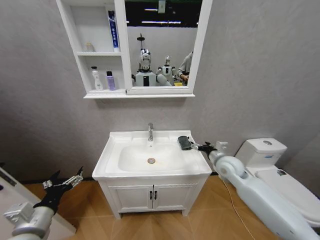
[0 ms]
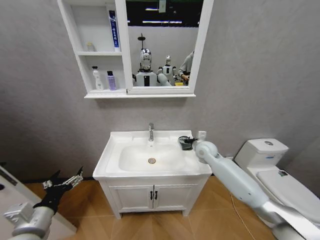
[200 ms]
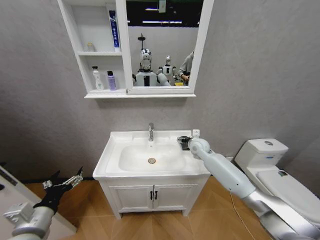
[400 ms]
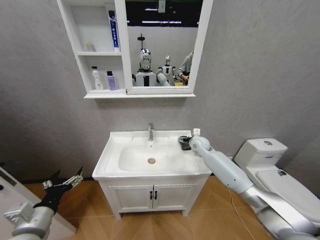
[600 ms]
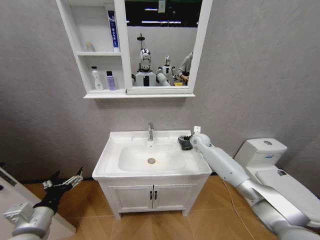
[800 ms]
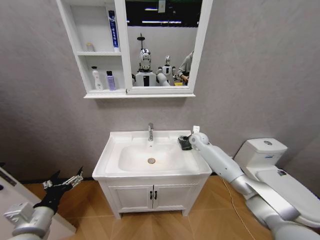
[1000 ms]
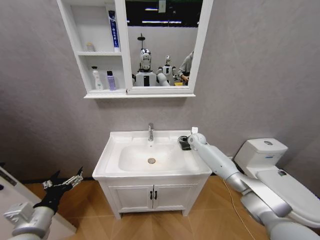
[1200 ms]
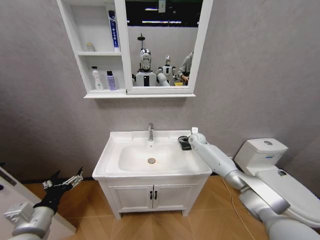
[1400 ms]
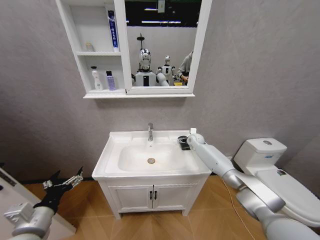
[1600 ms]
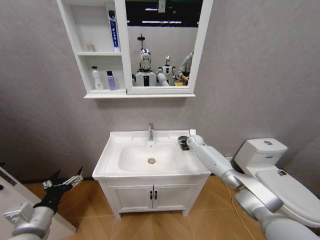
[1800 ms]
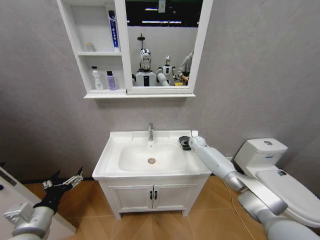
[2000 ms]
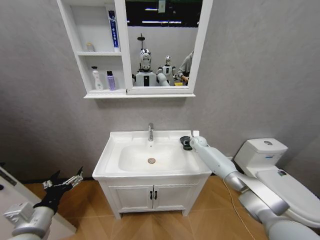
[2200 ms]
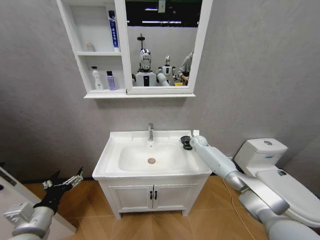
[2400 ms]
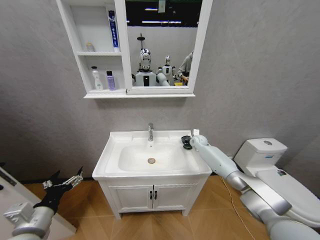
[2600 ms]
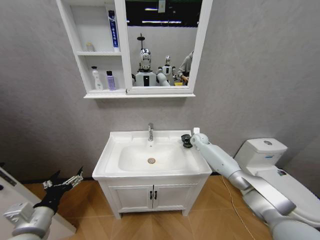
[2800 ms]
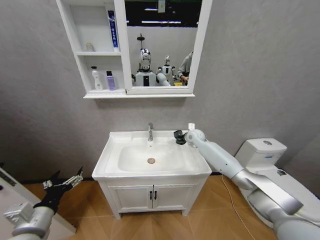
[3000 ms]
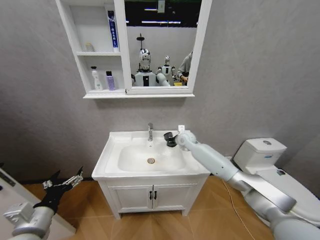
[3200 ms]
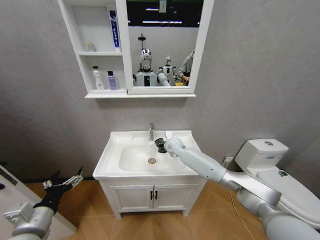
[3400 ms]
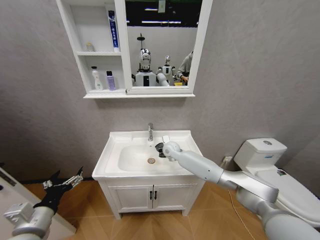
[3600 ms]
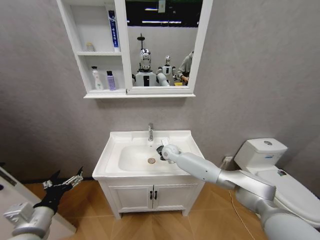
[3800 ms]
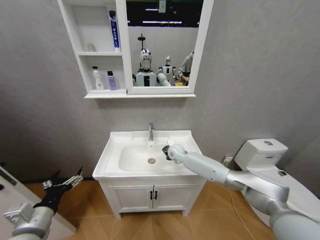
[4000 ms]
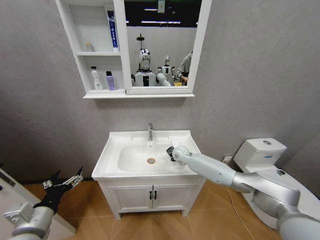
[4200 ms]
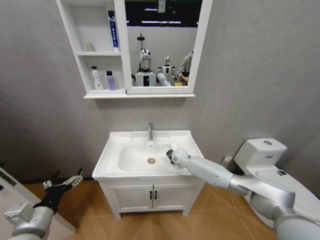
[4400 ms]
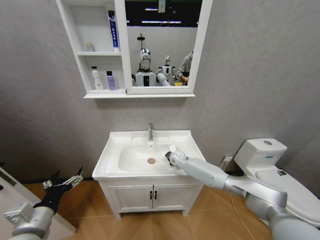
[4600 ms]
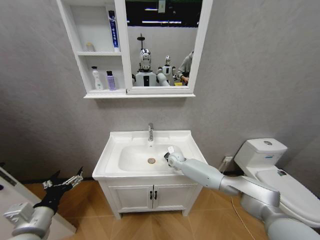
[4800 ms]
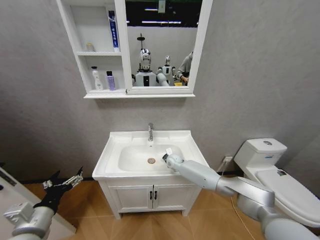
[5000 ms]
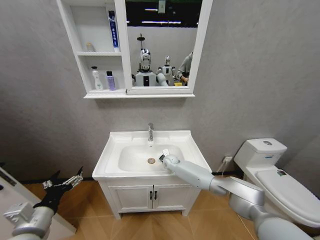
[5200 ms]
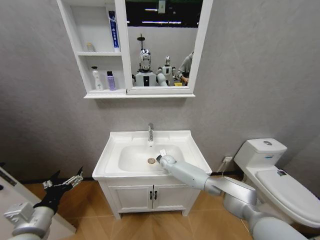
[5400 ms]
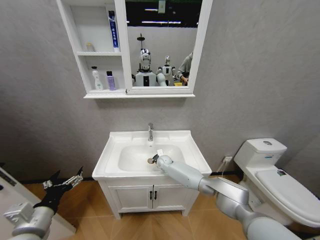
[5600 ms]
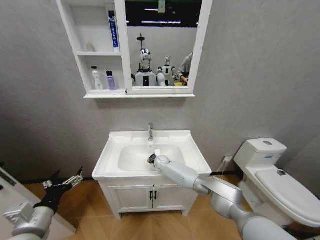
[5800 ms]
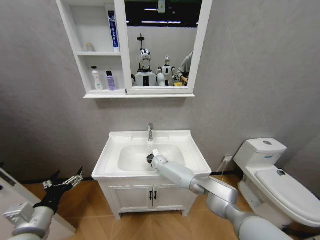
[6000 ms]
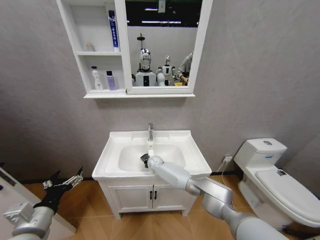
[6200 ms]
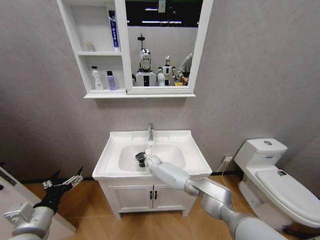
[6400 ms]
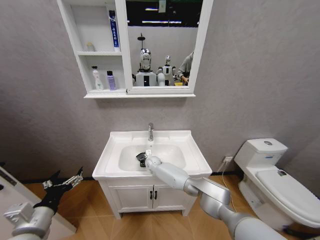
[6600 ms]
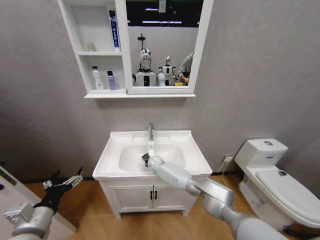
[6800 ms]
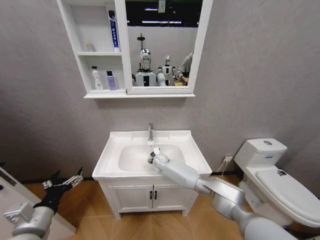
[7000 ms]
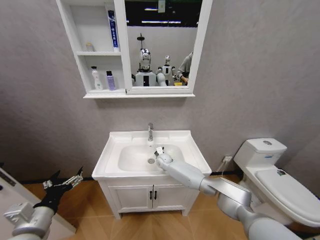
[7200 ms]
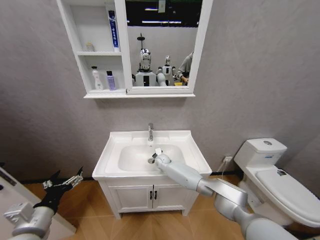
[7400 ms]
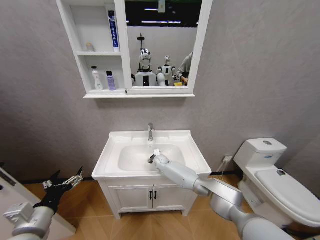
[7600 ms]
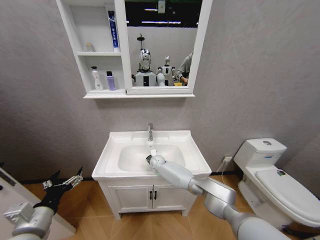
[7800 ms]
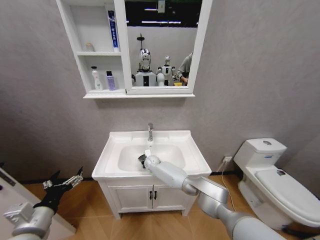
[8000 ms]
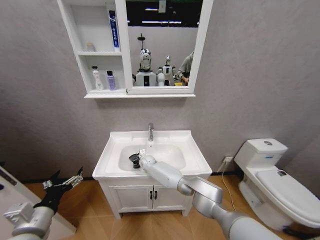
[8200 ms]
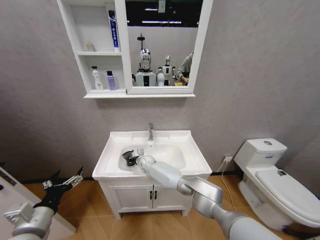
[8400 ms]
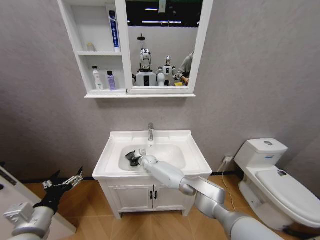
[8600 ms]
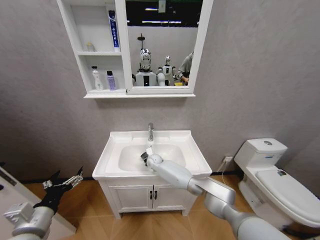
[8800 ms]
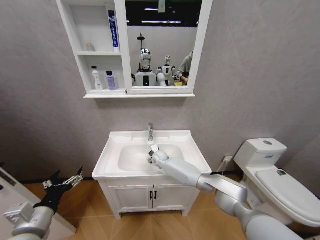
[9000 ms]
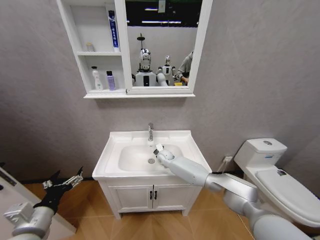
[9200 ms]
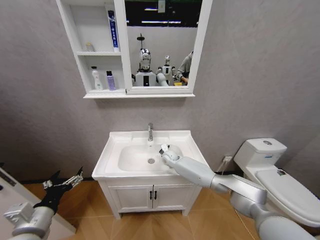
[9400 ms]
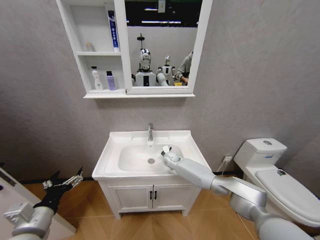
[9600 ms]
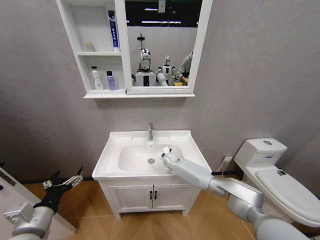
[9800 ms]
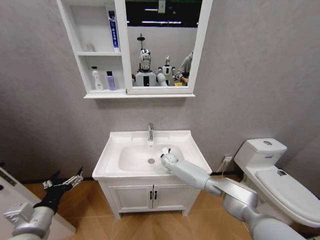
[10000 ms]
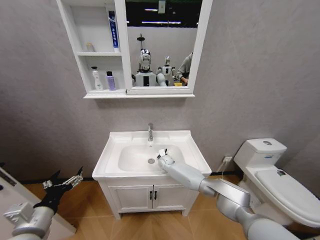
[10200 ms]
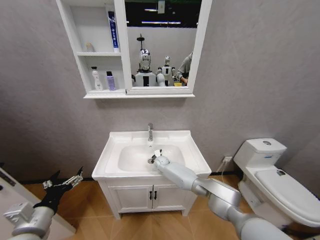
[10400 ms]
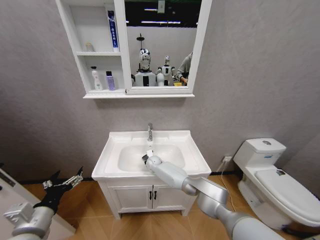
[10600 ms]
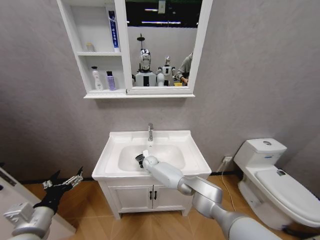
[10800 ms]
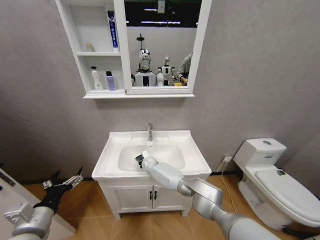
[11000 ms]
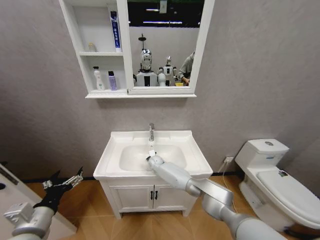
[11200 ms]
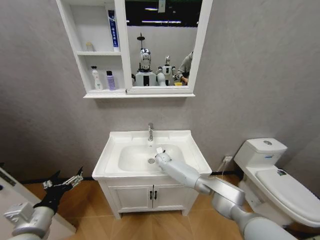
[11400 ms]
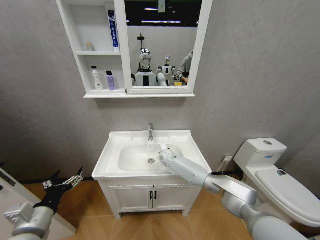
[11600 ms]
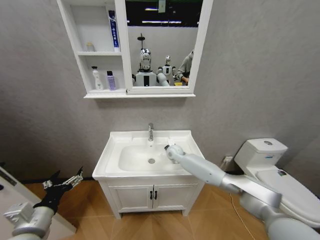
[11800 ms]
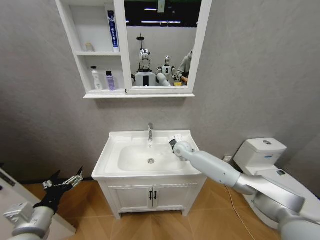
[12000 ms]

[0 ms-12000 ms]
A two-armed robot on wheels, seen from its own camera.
Task of the whole recording: Move facial cleanser and shampoo from washbasin to cabinet, then wipe washbasin with towel.
0 ms to 1600 ms: The right gripper shifts some 25 cm forward.
1600 ms to 3000 ms: The right gripper goes about 5 cm upward, and closes.
3000 ms to 4400 ms: The right gripper moves downward, to the left and backward, about 15 cm.
4400 ms to 6000 ms: The right gripper moves to the left and downward, roughly 15 cm.
6000 ms to 7600 ms: There are only small adjustments of the grippers.
7600 ms to 9000 ms: The right gripper goes to the left and returns, about 10 cm each way.
9000 ms to 10400 ms: The right gripper shifts about 5 cm downward.
10400 ms to 12000 ms: The right gripper goes some 20 cm upward and to the right.

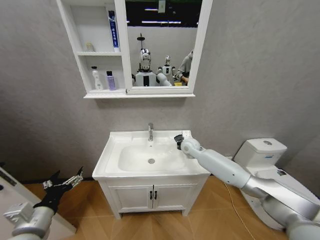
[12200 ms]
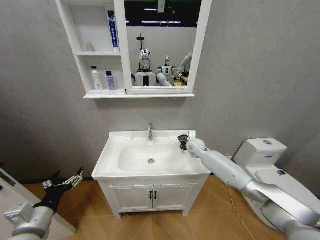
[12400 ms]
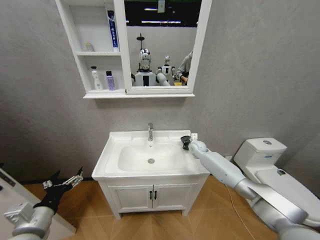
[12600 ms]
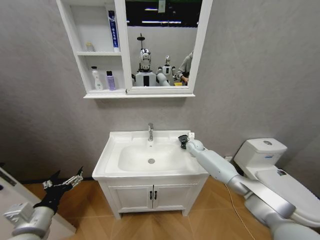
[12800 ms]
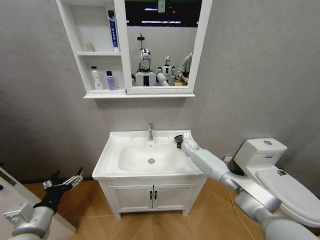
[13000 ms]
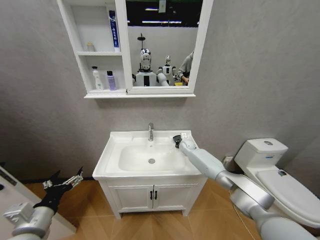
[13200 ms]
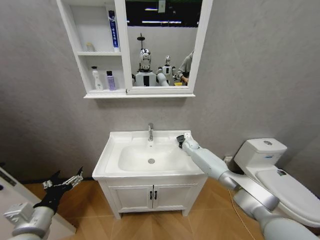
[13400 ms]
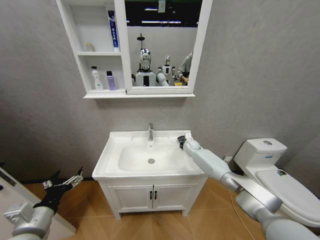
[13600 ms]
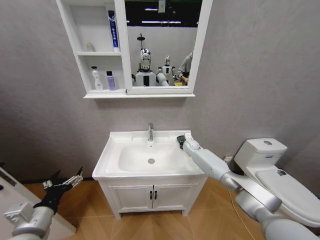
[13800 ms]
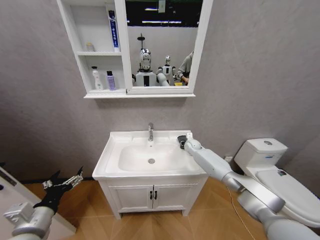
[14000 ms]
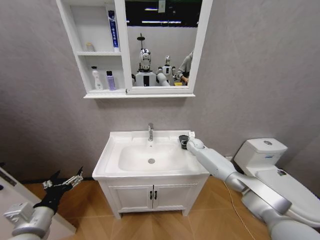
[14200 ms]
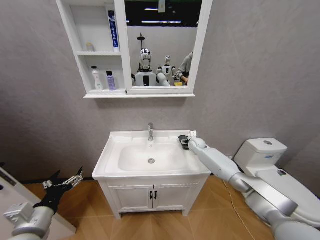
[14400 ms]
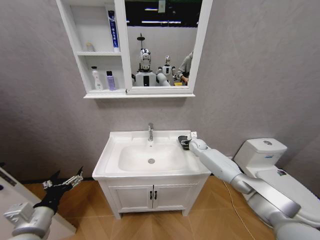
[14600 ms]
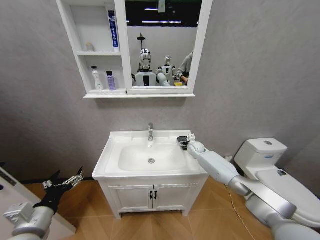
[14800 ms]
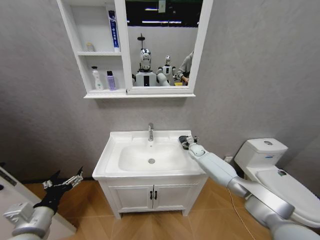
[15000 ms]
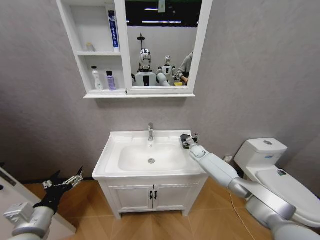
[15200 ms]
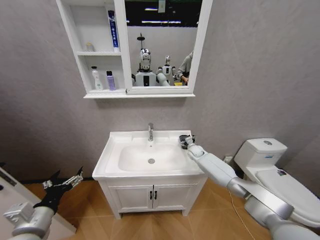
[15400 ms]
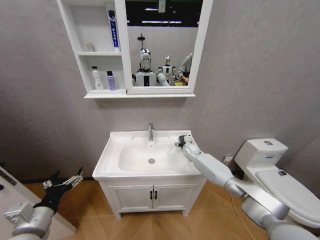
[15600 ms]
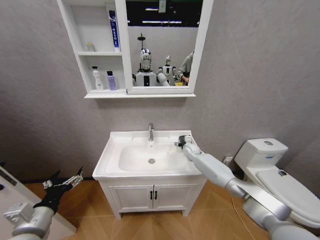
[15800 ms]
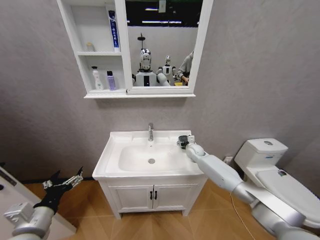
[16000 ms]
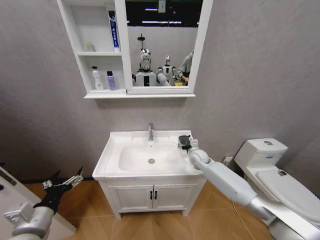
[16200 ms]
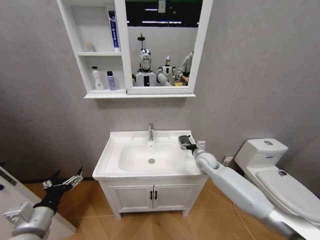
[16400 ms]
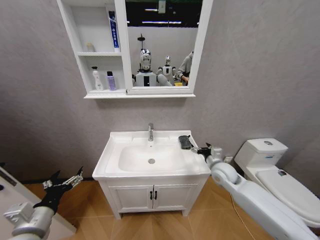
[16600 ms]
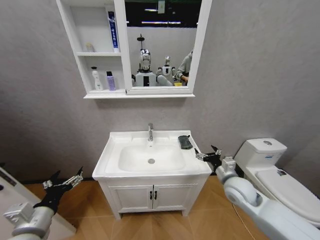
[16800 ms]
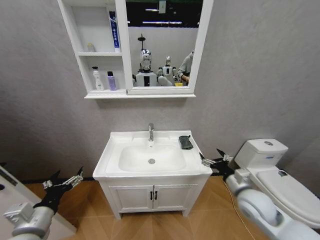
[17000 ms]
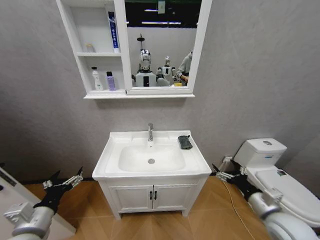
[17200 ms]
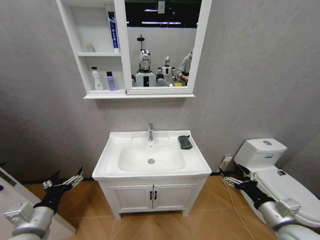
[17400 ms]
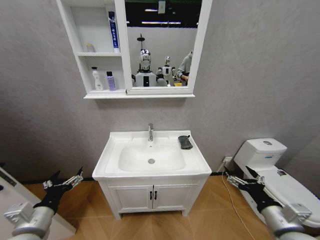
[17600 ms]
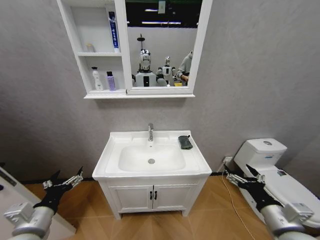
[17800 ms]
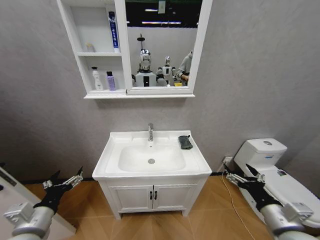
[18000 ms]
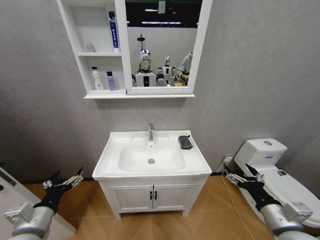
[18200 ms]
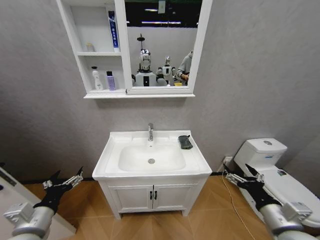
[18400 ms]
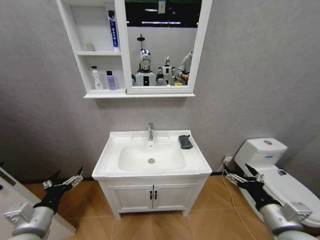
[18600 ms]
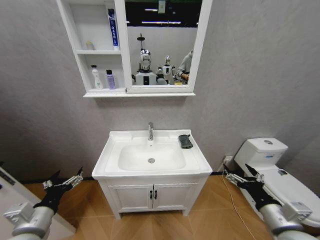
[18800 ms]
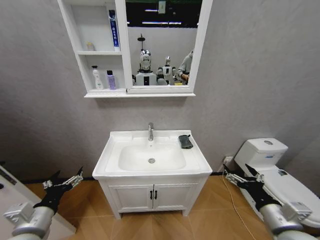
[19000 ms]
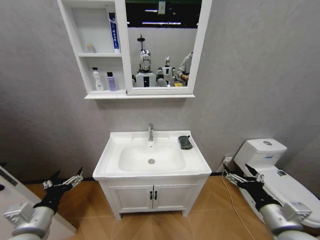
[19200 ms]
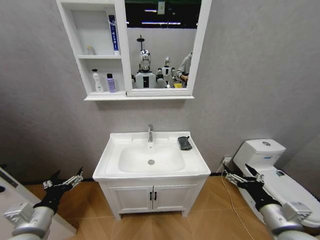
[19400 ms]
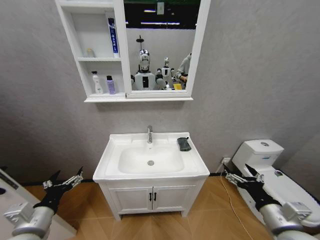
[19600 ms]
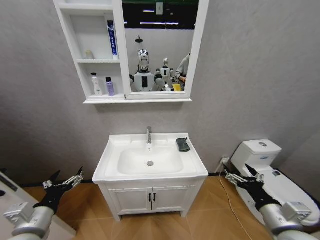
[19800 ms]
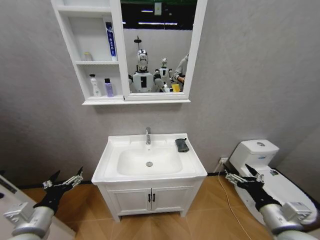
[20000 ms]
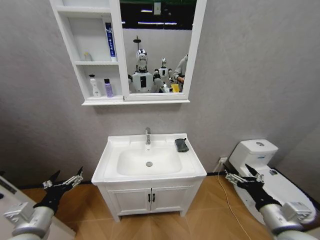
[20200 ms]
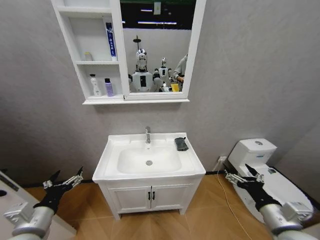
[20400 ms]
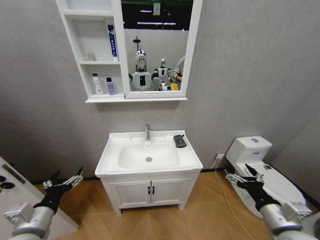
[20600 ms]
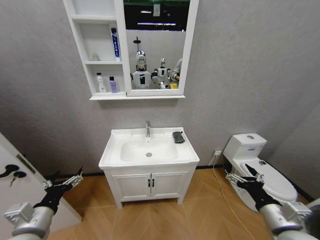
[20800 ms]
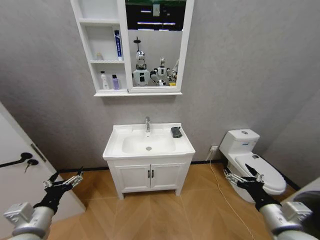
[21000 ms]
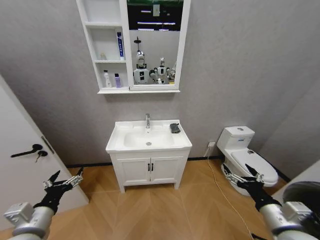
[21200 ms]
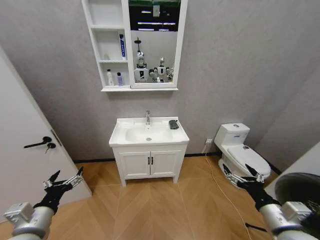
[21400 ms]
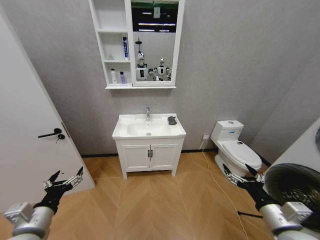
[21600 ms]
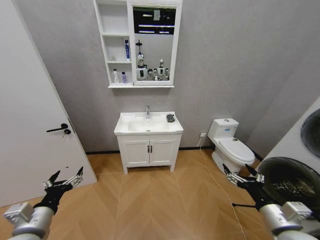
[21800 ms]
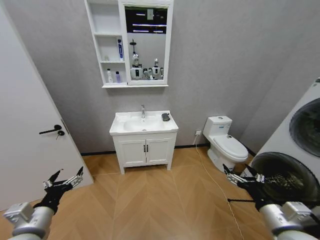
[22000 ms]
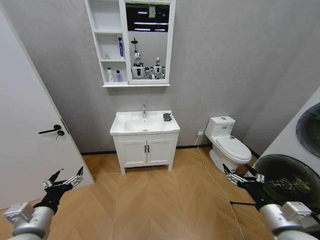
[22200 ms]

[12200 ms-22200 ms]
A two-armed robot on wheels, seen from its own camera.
Task of the whole recording: Move facial cleanser and shampoo from washbasin to cabinet, then wipe washbasin with towel.
12200 ms to 13600 ms: The right gripper heads downward and forward, covering some 10 cm.
13600 ms to 15000 ms: The right gripper opens up.
15000 ms to 16400 ms: The right gripper travels backward and upward by roughly 15 cm.
16400 ms to 18000 ms: The right gripper travels backward by roughly 30 cm.
18000 ms to 19400 ms: Both grippers stay about where they are.
